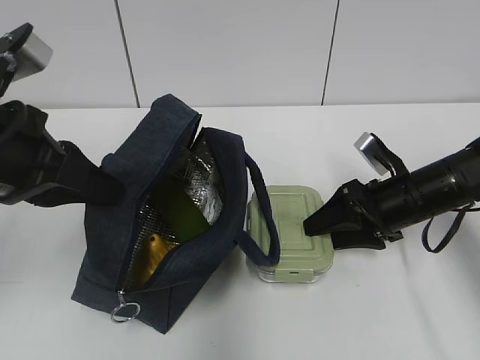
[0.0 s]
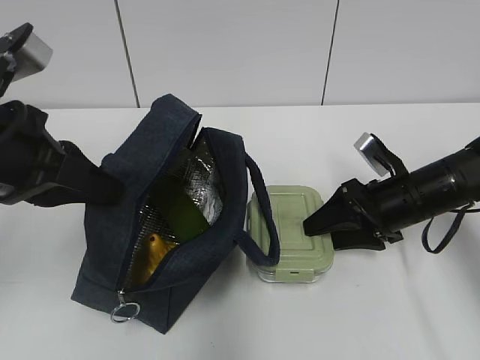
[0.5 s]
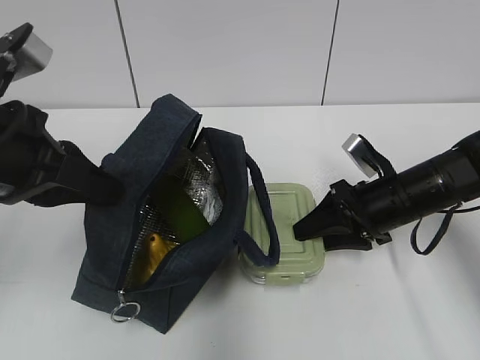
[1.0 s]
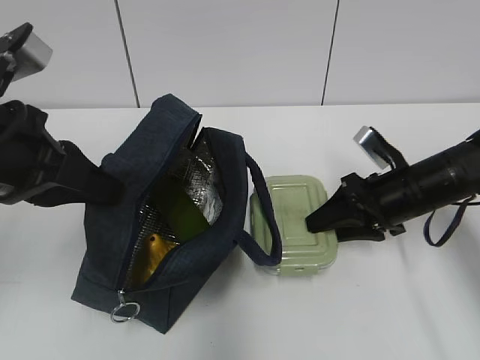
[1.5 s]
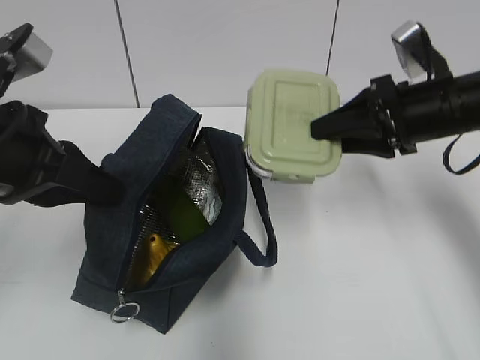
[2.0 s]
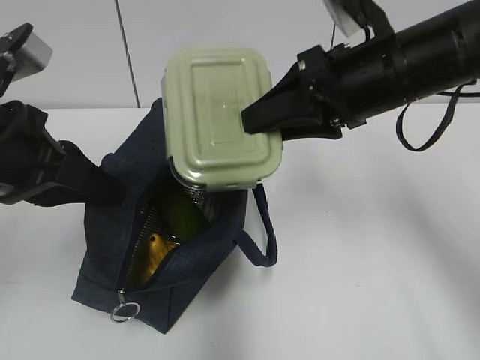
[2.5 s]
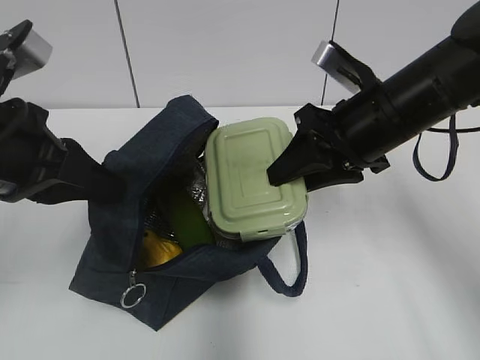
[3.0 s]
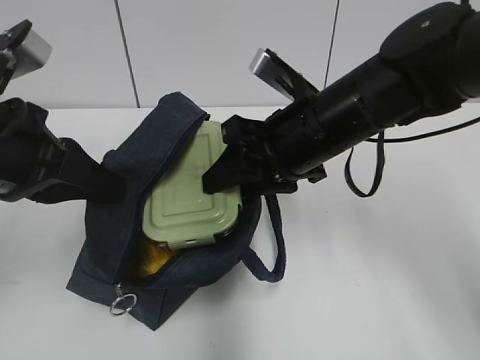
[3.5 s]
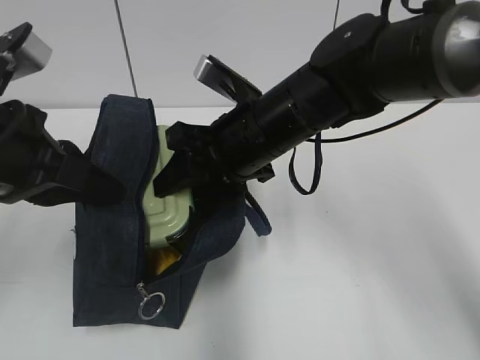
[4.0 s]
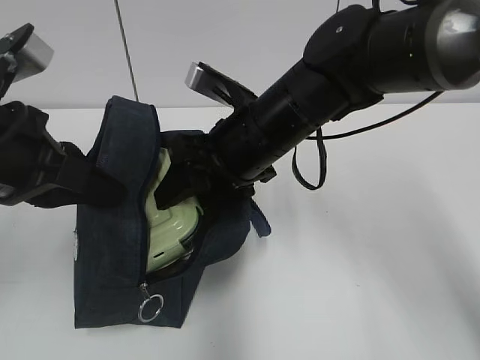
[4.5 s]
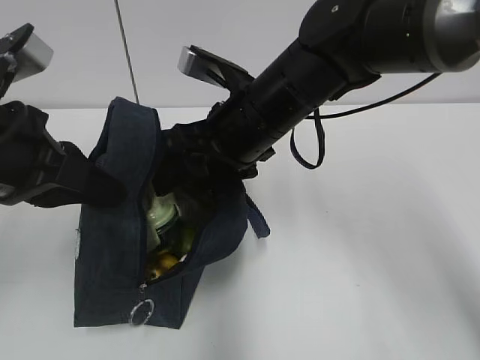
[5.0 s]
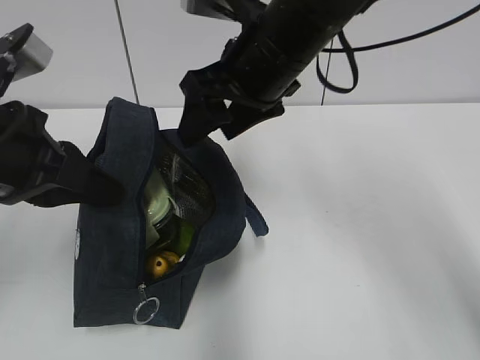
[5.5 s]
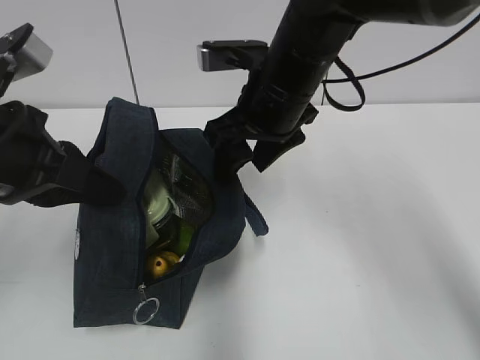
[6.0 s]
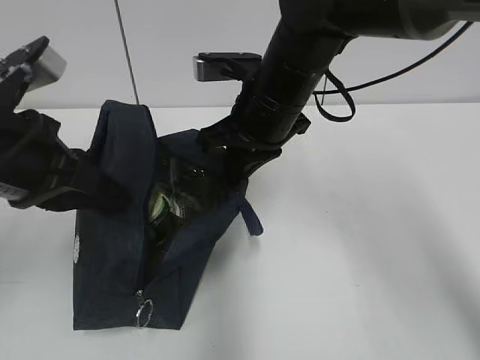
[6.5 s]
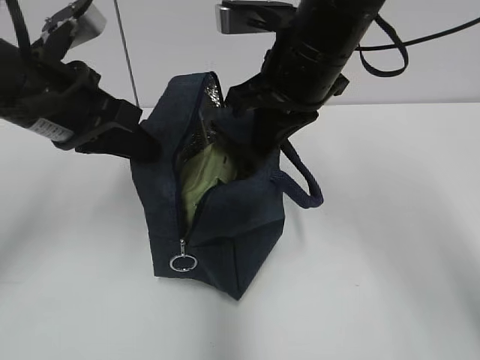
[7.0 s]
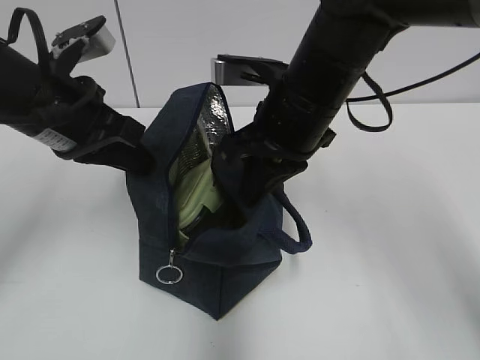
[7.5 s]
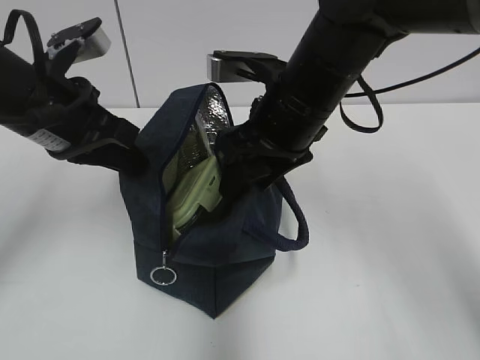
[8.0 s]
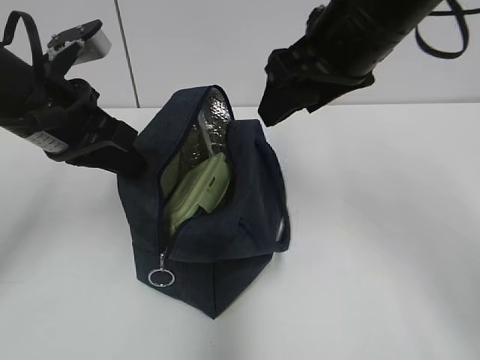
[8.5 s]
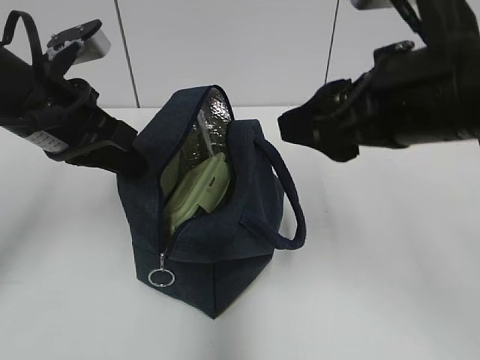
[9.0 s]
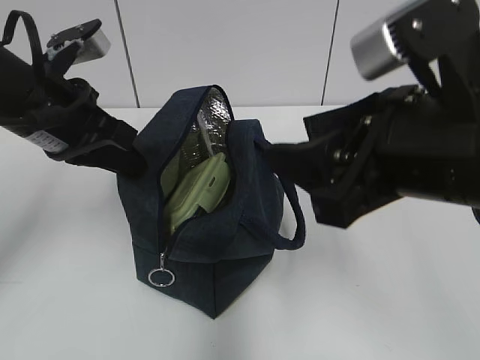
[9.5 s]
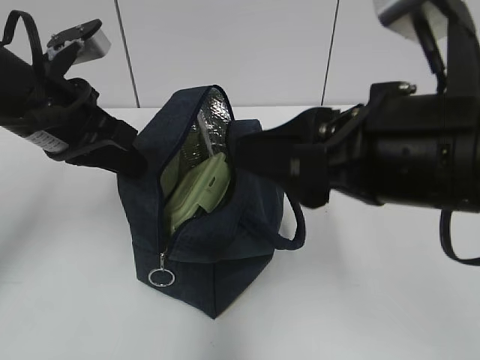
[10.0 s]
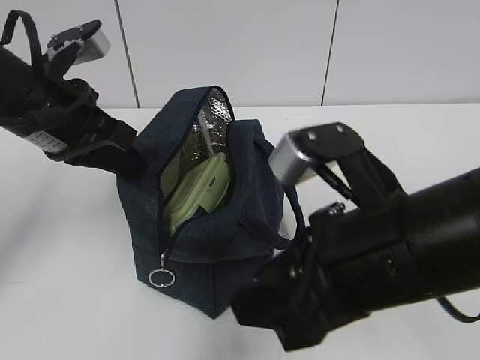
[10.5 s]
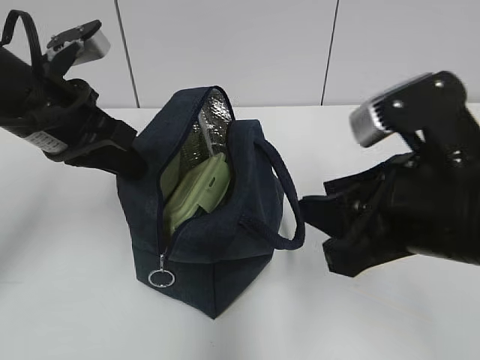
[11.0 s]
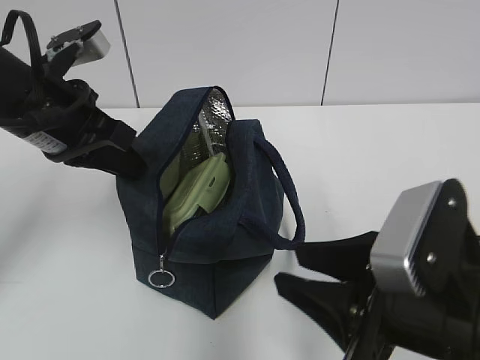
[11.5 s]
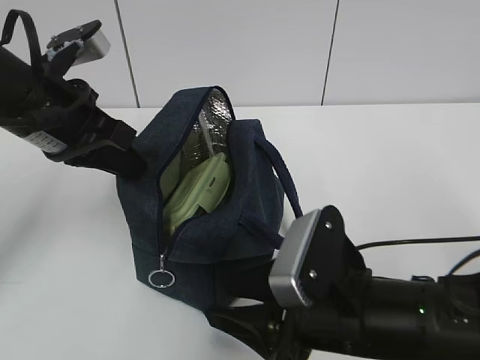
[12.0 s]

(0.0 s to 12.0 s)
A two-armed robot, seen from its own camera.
0.0 s - 2.0 s: The right gripper travels upward by roughly 15 cm.
2.0 s - 4.0 s: The right gripper travels to the left by approximately 20 cm.
6.0 s - 8.0 s: The right gripper closes and opens again. The left gripper heads forward, covering roughly 10 cm.
8.0 s - 10.0 s: The right gripper is displaced backward by some 15 cm.
10.0 s - 12.0 s: The right gripper travels downward by approximately 15 cm.

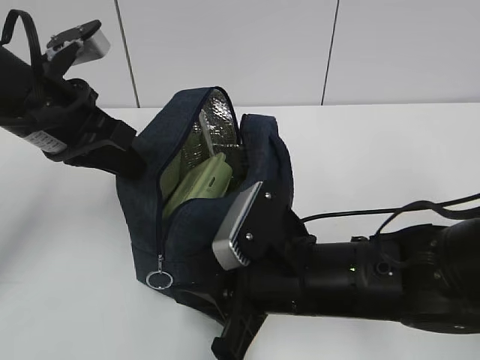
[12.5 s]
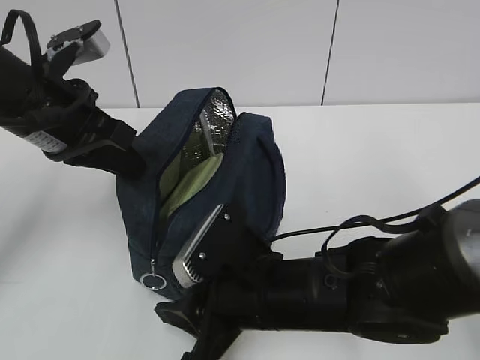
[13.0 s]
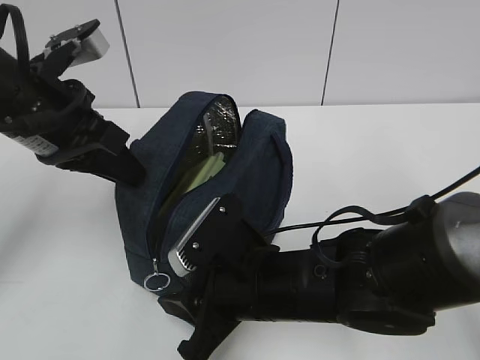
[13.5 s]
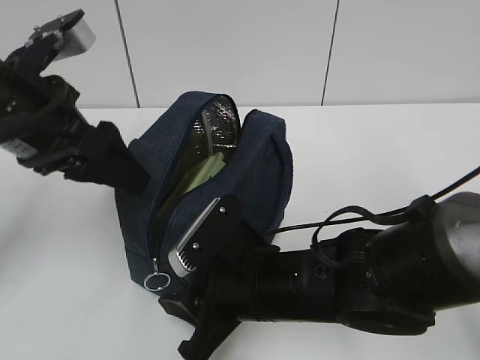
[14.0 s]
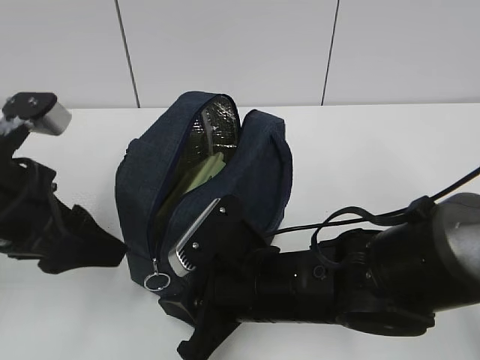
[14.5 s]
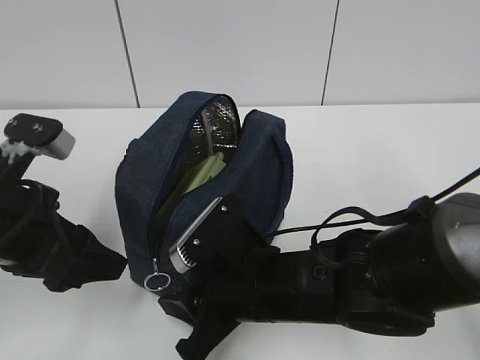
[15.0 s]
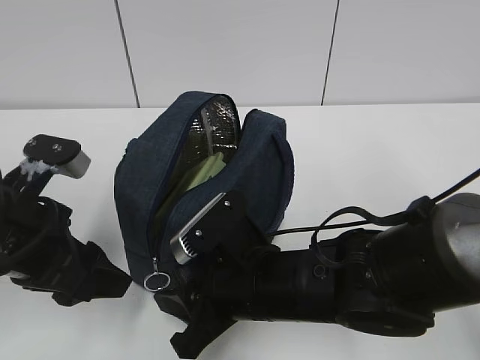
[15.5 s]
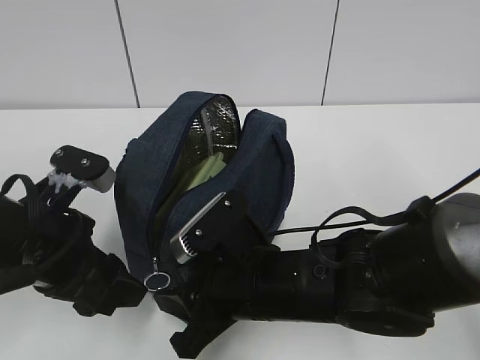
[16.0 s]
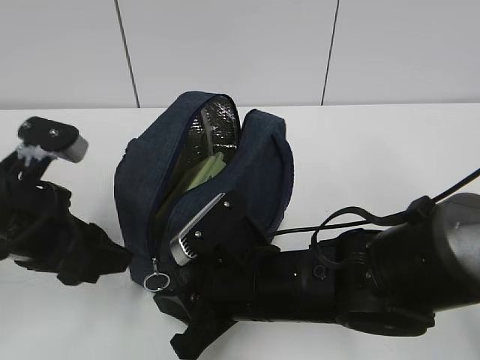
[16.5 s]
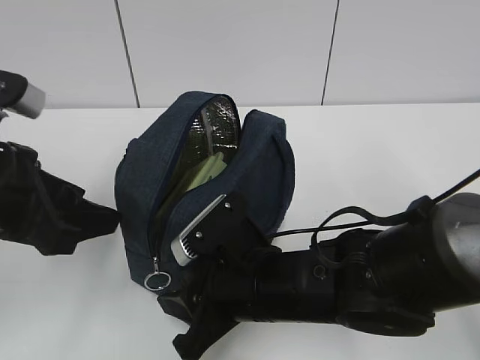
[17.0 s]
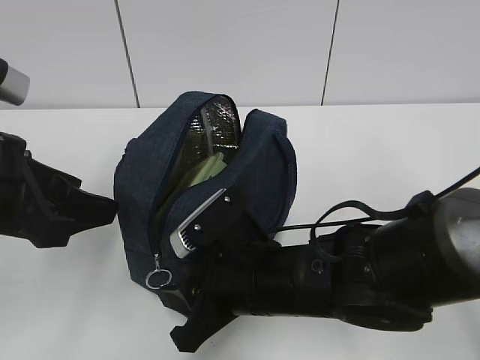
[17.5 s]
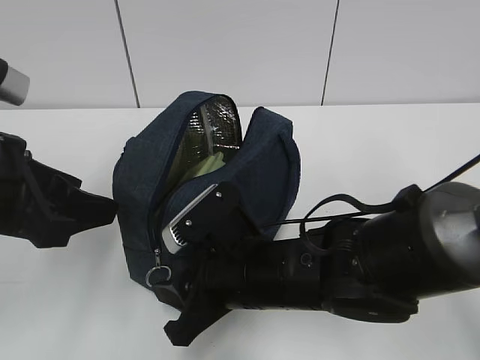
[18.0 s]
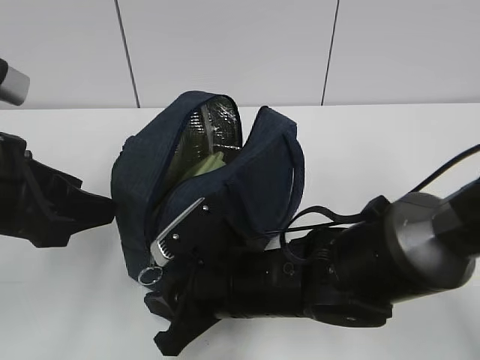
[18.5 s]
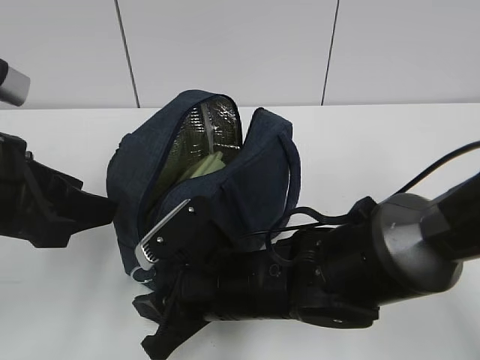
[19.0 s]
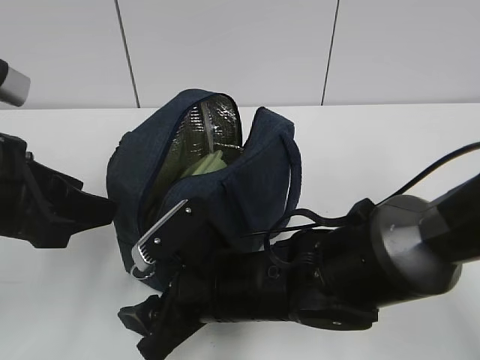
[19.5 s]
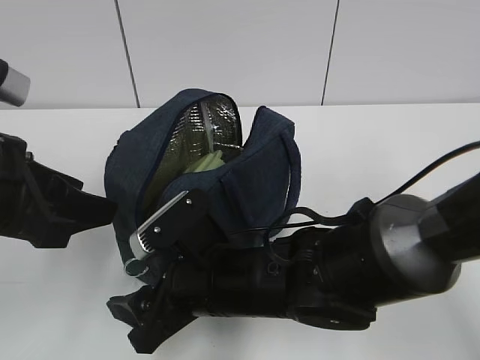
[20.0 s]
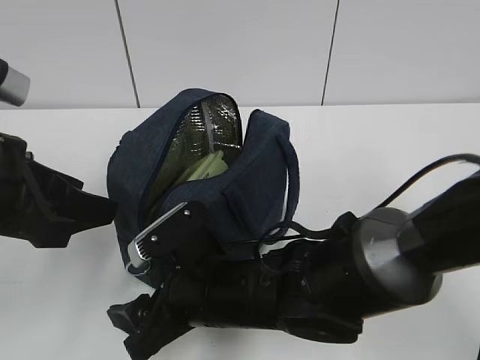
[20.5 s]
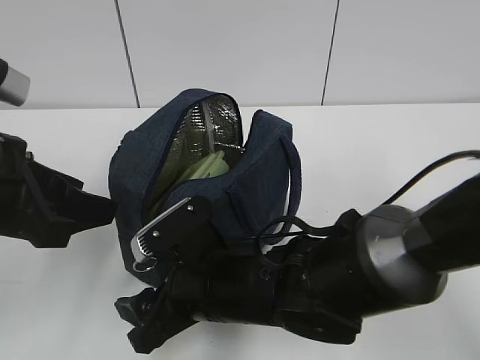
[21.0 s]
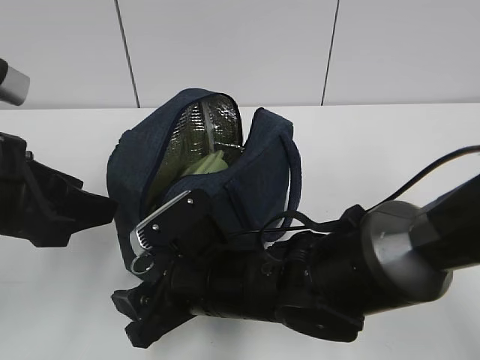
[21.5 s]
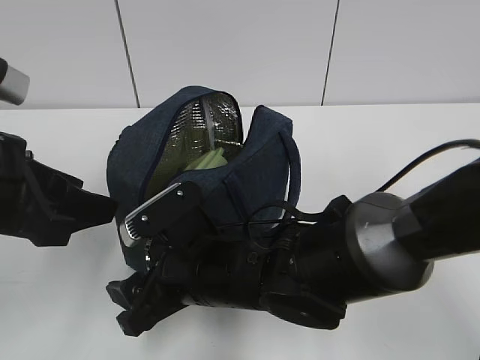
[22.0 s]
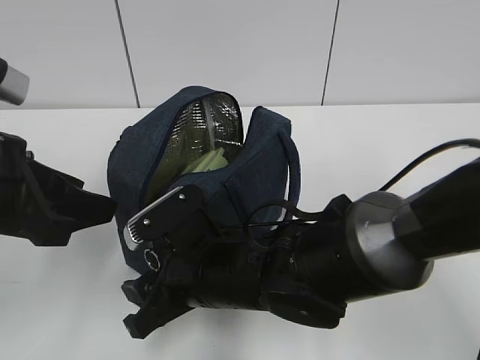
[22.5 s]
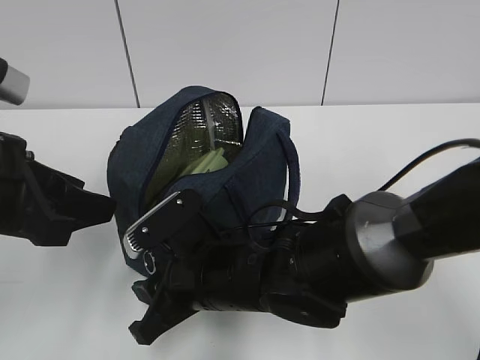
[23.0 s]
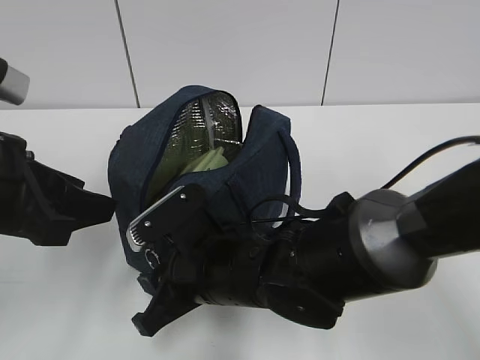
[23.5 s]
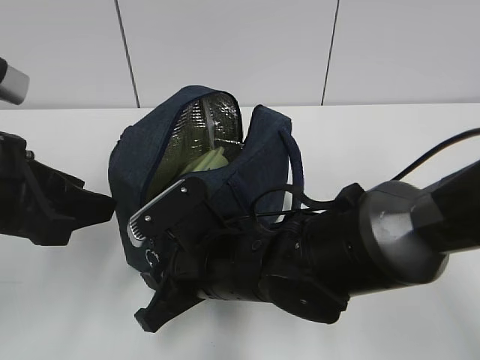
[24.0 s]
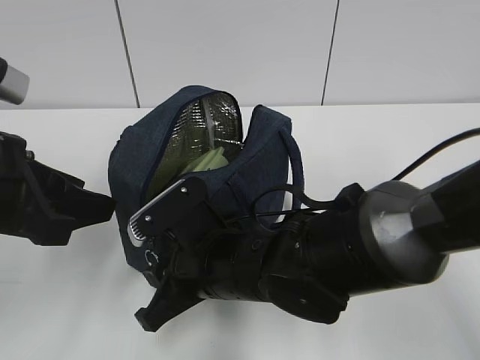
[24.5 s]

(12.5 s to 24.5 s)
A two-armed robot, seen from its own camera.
12.5 s - 14.5 s: The left gripper goes roughly 10 cm backward, and opens up.
14.5 s - 16.5 s: The grippers move only a little.
16.5 s - 18.5 s: The left gripper goes some 5 cm upward.
18.5 s - 20.5 s: The right gripper opens its fingers.
20.5 s - 24.5 s: The grippers move only a little.

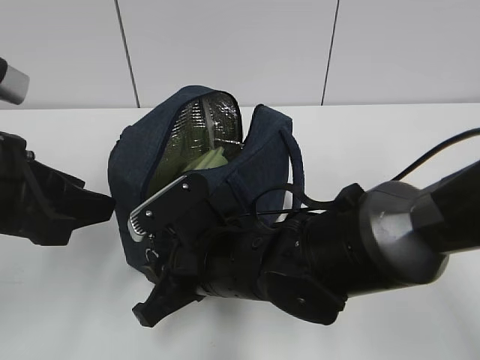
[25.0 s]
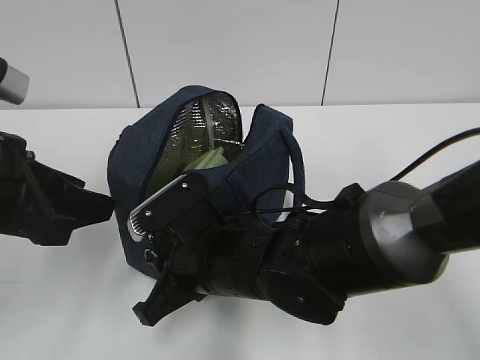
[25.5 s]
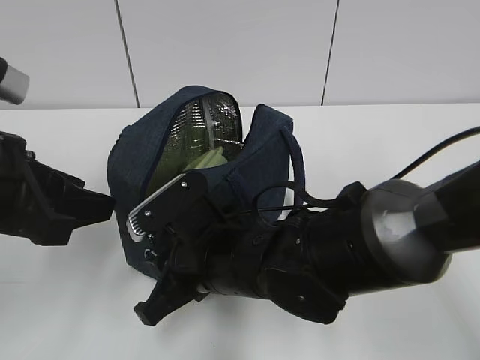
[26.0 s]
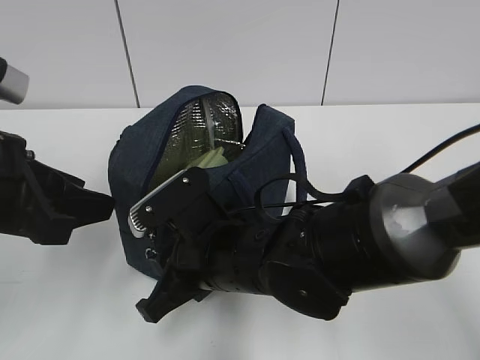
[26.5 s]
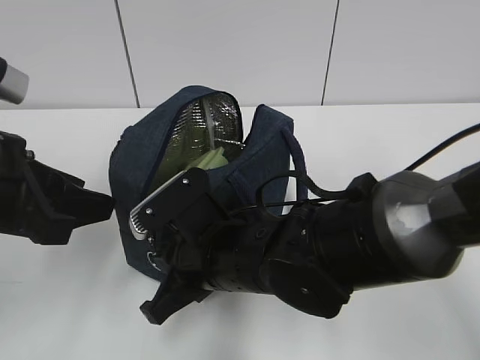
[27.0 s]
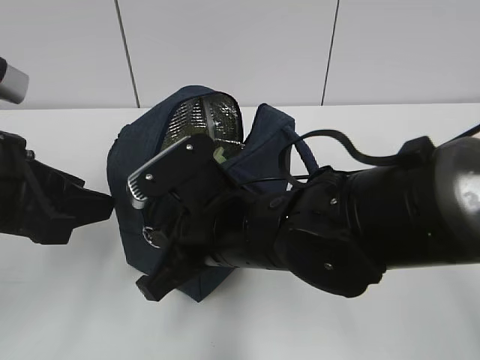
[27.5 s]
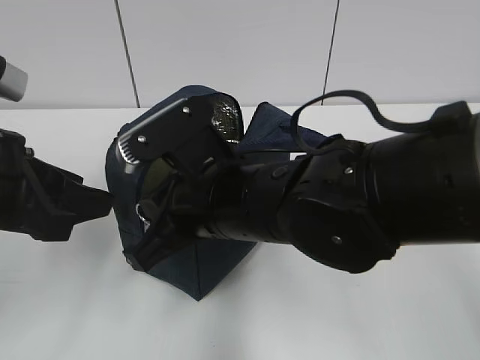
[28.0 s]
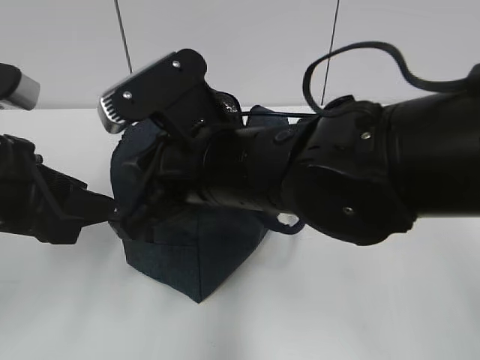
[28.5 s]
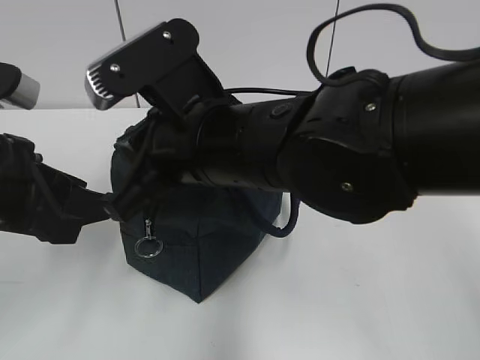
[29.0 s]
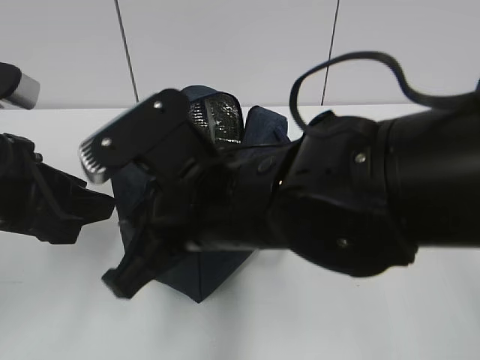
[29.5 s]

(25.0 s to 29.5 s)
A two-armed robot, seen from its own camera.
25.0 s - 27.0 s: The right gripper closes up.
27.0 s - 29.5 s: The right gripper travels upward by roughly 10 cm.
